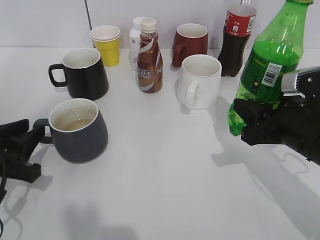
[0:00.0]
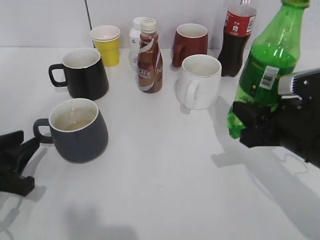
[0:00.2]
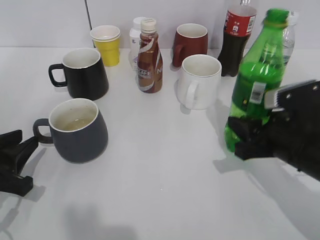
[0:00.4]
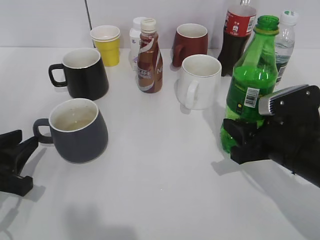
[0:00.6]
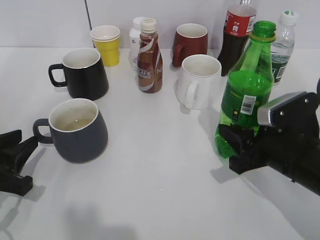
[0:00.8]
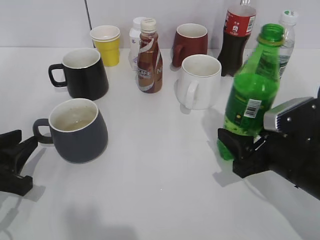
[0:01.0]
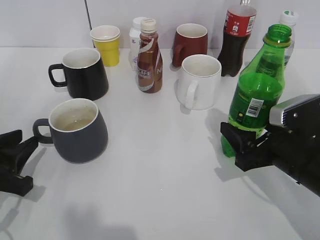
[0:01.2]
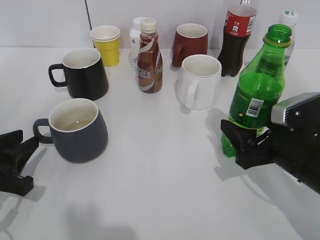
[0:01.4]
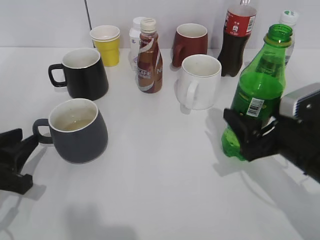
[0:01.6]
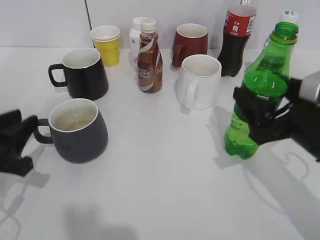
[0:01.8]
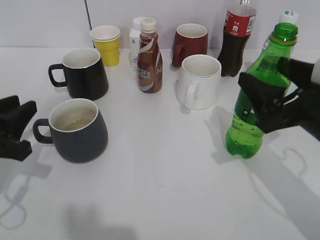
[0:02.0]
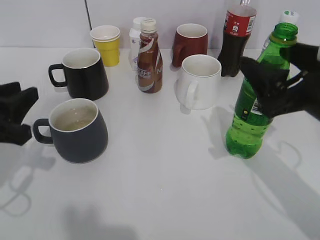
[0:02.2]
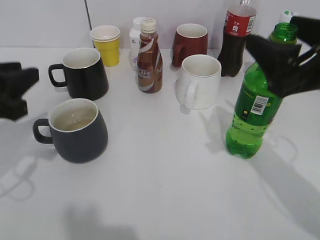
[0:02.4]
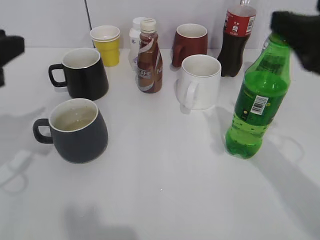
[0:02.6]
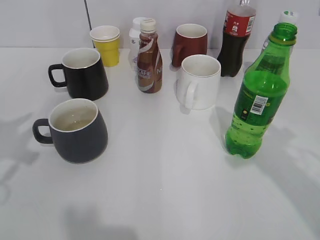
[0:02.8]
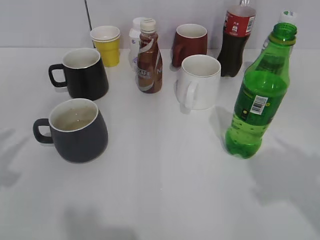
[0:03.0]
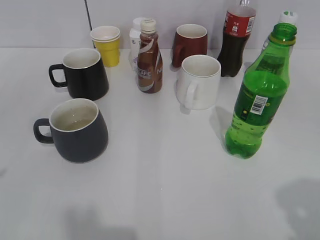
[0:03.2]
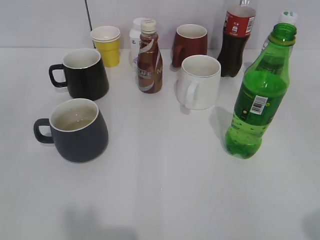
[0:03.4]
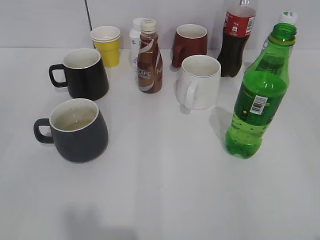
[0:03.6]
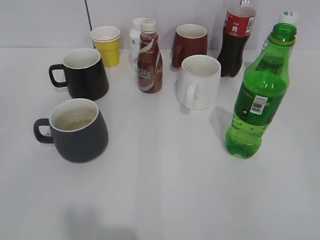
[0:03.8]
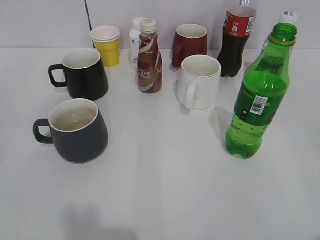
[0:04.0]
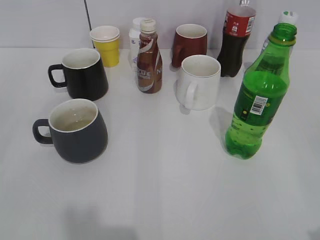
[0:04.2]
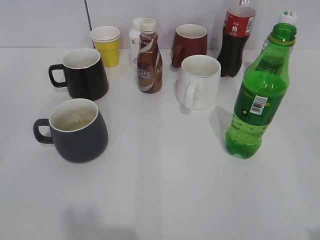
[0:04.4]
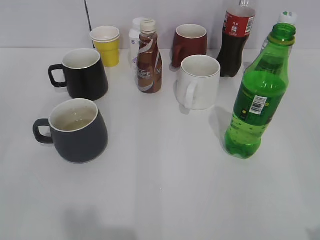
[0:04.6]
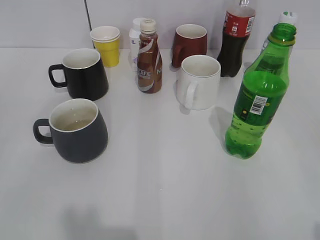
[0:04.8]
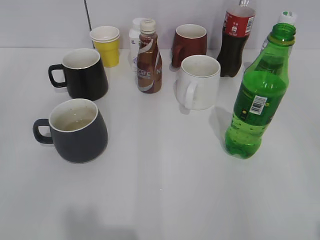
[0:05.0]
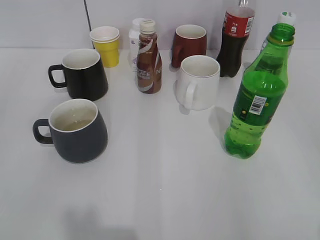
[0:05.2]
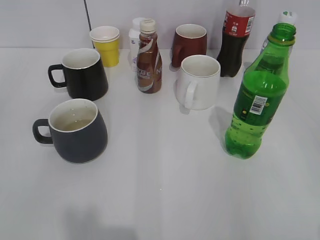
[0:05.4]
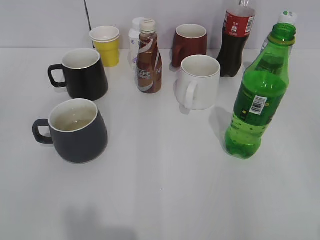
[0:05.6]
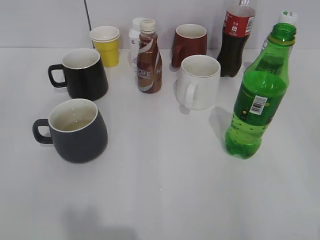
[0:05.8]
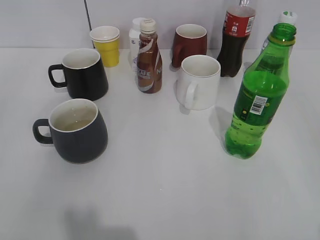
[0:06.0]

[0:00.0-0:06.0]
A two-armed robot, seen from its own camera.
Step, 0:00.0 to 0:01.8: Place the sprite bottle on the table with right gripper.
0:00.0 to 0:01.6: The right gripper opens its fingers.
0:01.6 to 0:03.0: The left gripper shifts some 20 cm upward. Meanwhile the right gripper goes roughly 25 cm upward and backward.
0:03.0 to 0:04.4: The right gripper goes about 15 cm backward and downward.
